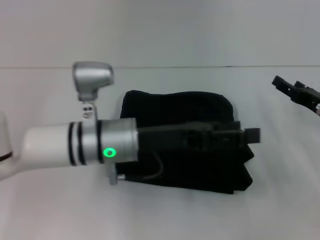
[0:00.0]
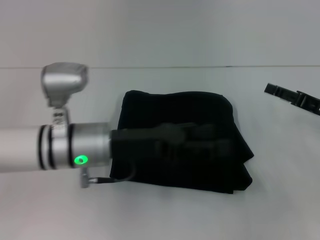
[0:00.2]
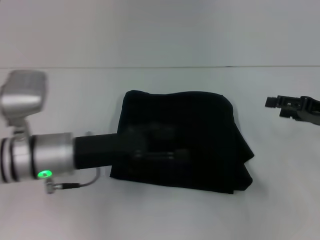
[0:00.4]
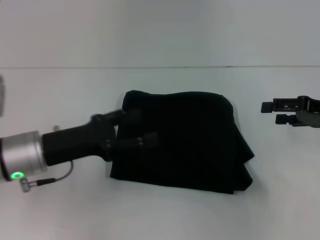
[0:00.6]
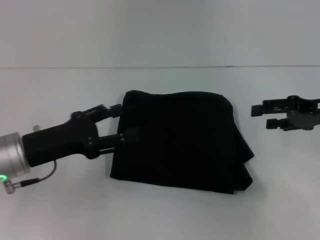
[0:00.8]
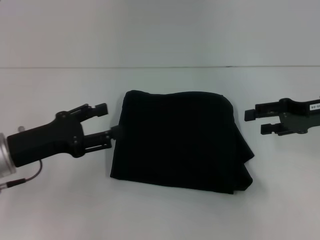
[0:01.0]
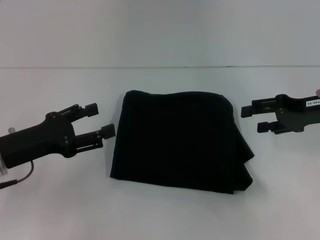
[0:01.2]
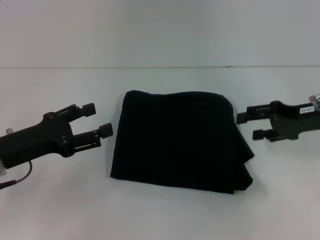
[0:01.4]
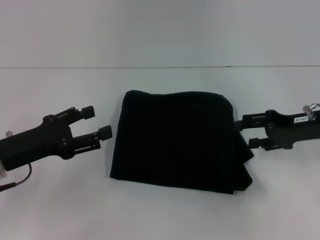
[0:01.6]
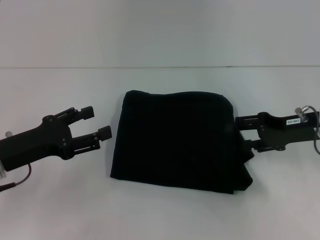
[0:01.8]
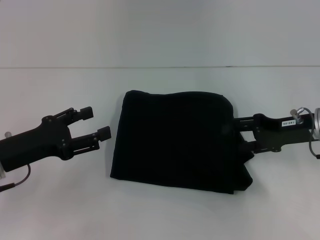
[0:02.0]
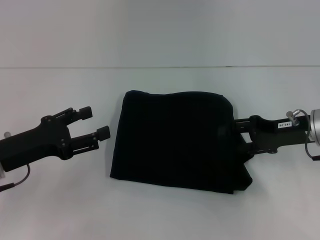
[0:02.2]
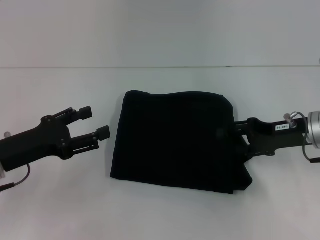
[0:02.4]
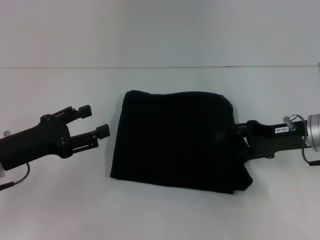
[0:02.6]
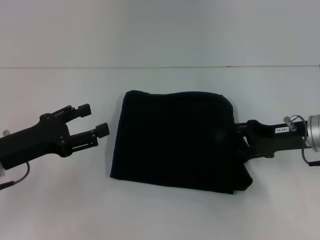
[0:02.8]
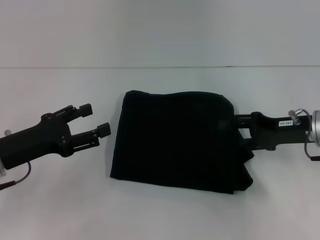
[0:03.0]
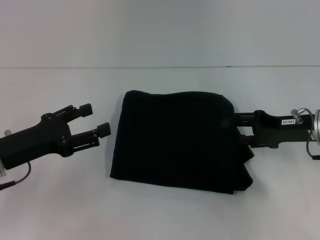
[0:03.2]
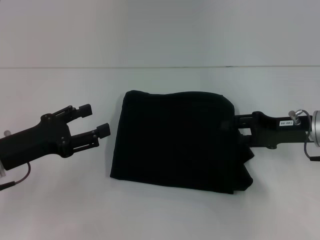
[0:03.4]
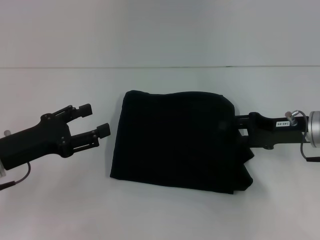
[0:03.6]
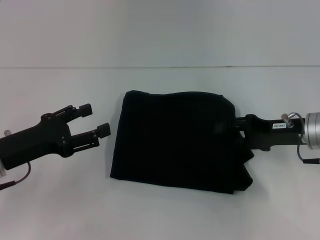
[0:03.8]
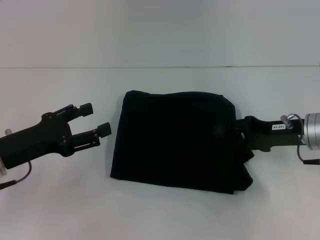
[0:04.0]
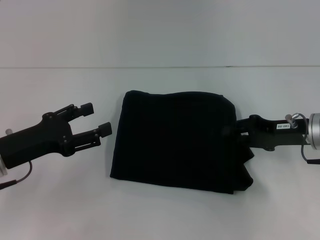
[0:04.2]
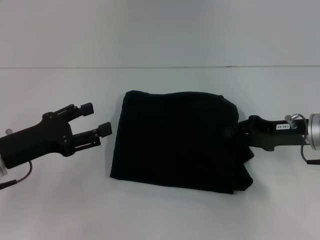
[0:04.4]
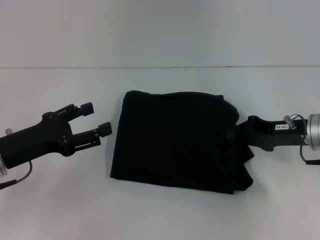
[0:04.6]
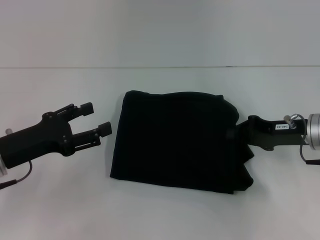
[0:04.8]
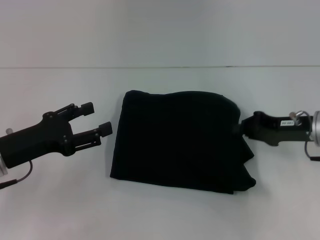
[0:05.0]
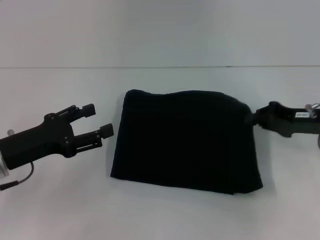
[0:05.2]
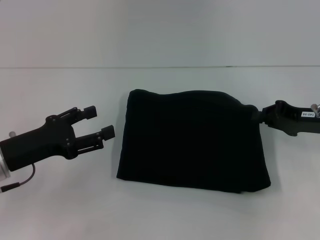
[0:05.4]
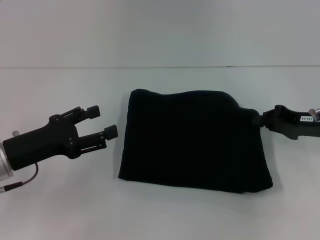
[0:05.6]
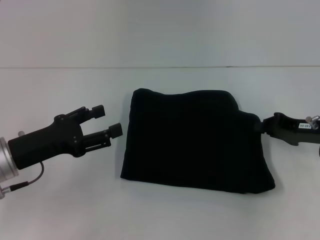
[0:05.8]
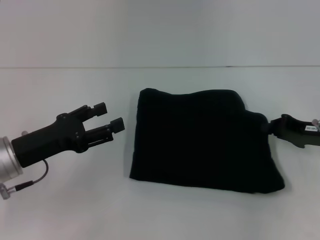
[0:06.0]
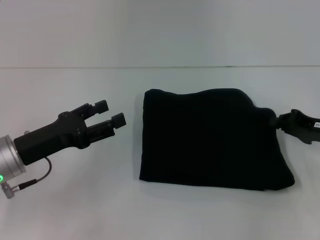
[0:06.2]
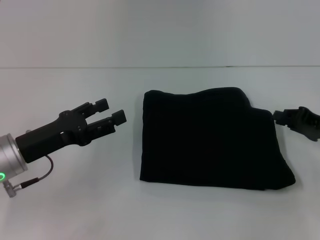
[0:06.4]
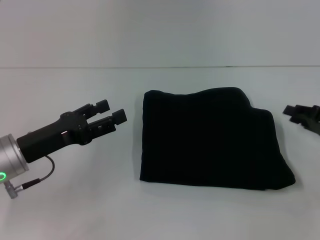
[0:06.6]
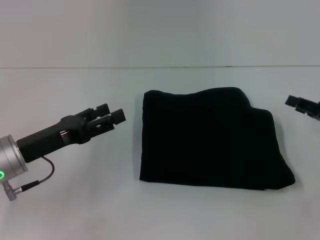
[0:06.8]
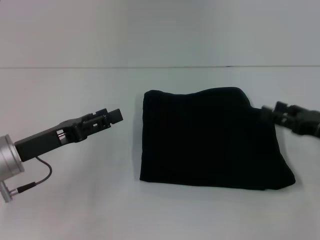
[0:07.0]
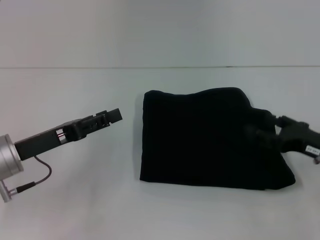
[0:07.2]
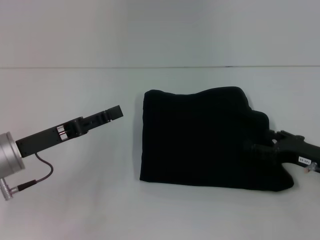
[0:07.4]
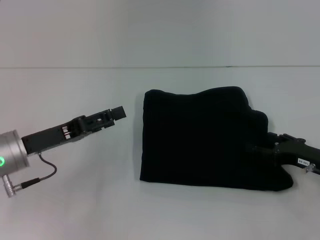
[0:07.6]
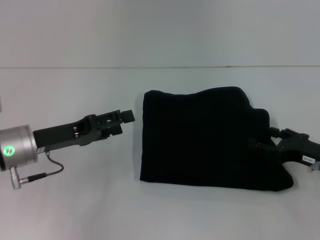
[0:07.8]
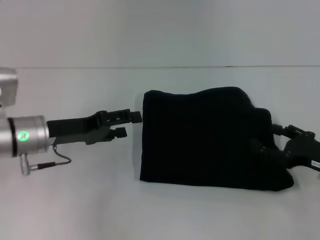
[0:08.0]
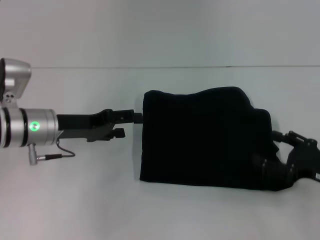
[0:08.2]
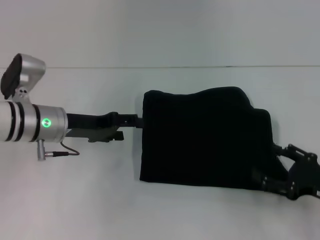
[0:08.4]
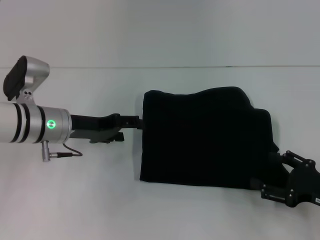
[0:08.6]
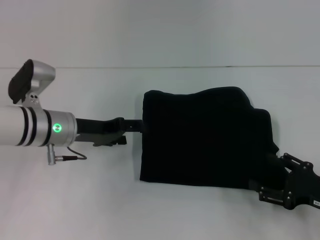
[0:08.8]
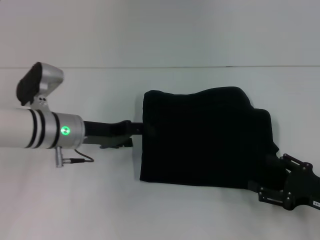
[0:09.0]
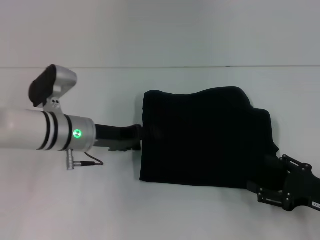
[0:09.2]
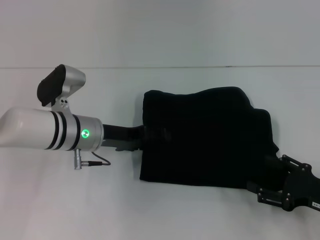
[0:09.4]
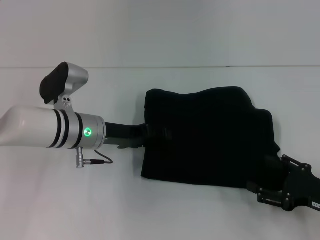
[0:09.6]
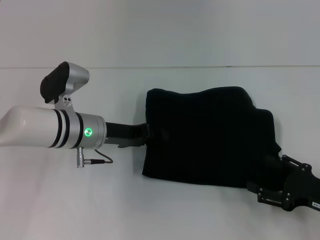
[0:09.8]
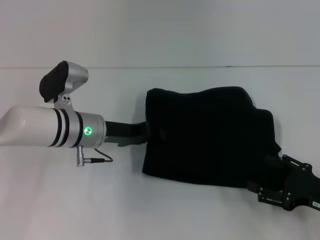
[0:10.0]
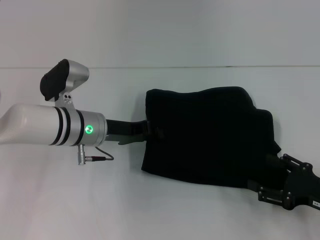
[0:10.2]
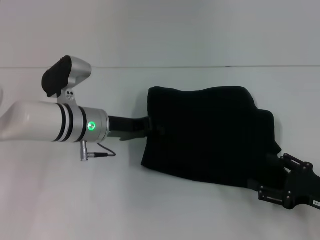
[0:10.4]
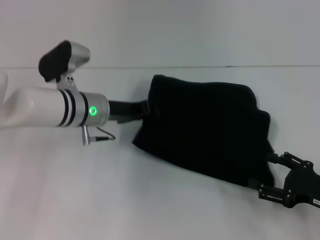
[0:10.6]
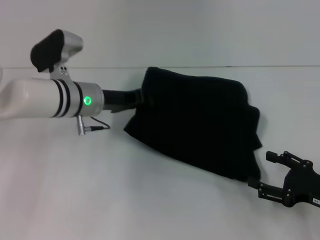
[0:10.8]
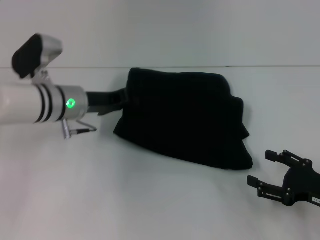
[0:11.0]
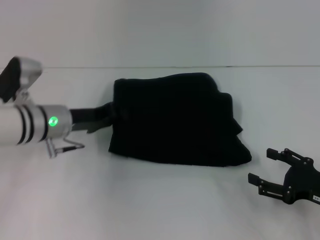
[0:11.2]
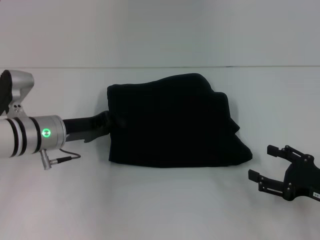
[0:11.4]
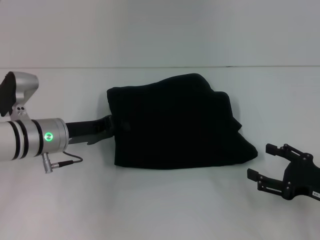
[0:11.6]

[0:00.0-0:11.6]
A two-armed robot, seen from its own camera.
0:00.0 to 0:01.4: The left gripper shifts about 20 cm to the left, while the right gripper shifts approximately 10 cm upward.
0:01.4 to 0:02.8: The right gripper changes place by about 5 cm.
0:02.8 to 0:04.4: The right gripper closes its fingers.
0:04.4 to 0:05.8: The right gripper closes.
0:05.8 to 0:07.2: The right gripper goes approximately 5 cm backward, and opens its fingers.
0:07.2 to 0:08.8: The right gripper travels backward by some 5 cm; the left gripper travels forward and to the right by about 10 cm.
0:08.8 to 0:10.2: The left gripper closes.
0:10.2 to 0:11.6: The left gripper heads to the left, covering roughly 5 cm.

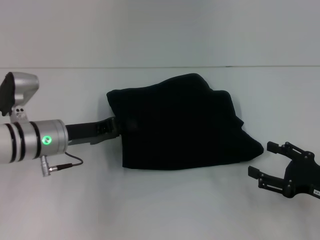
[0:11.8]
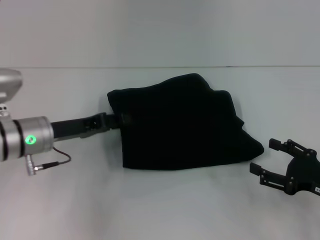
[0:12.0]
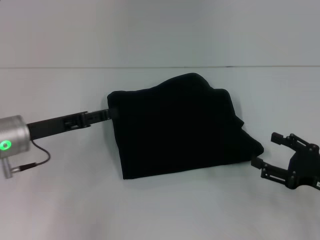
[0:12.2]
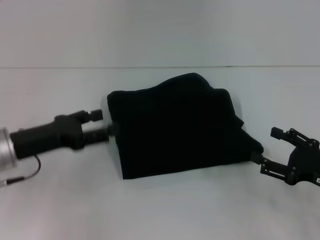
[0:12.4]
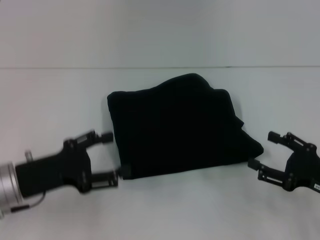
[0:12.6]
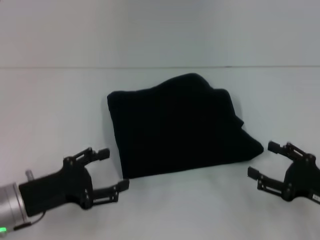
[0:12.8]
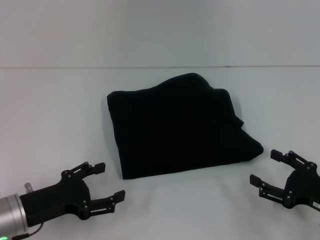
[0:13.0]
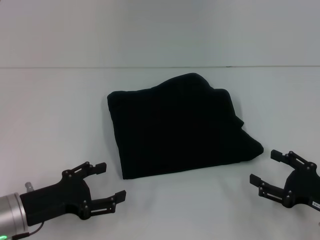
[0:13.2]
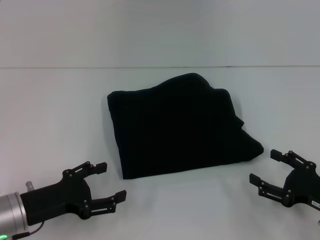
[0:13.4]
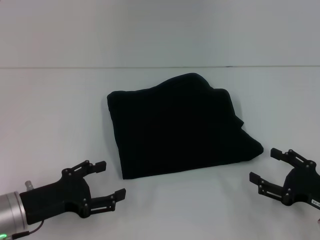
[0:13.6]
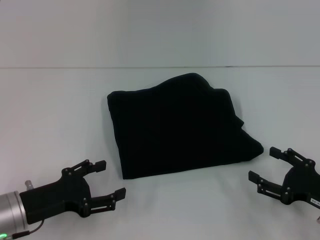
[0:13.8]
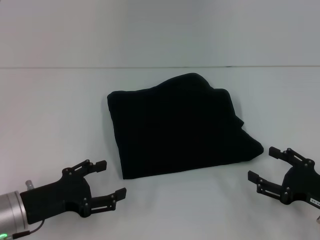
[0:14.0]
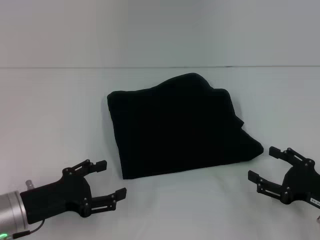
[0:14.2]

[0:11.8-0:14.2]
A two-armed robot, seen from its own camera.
0:11.8 to 0:13.0: The left gripper moves backward, approximately 10 cm, and opens.
0:13.0 to 0:14.2: The two grippers keep their place.

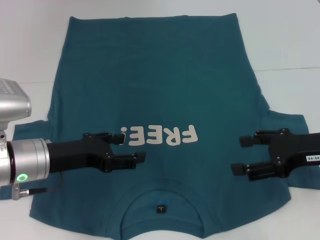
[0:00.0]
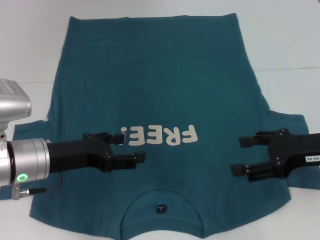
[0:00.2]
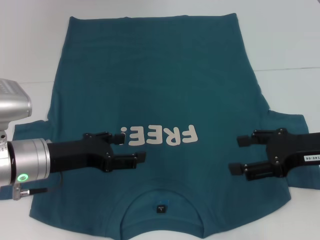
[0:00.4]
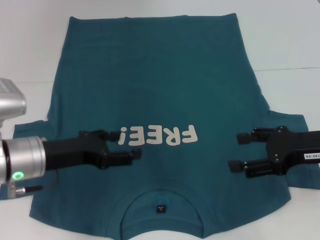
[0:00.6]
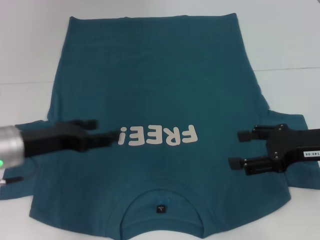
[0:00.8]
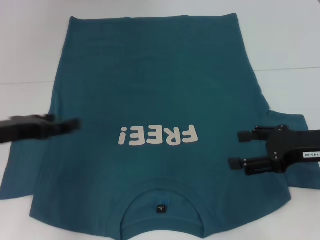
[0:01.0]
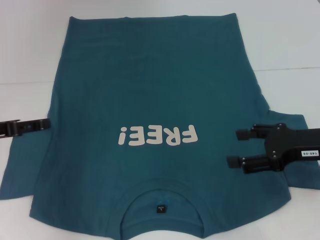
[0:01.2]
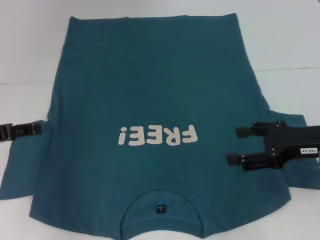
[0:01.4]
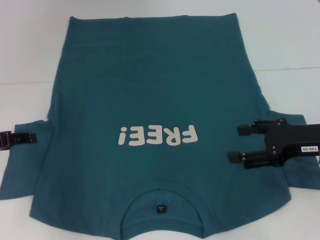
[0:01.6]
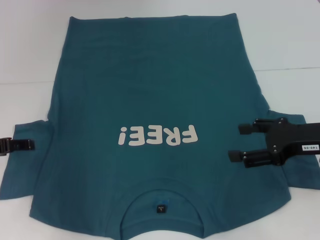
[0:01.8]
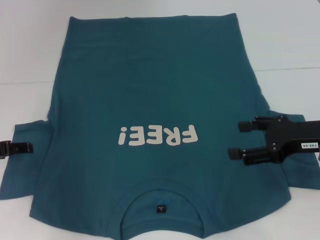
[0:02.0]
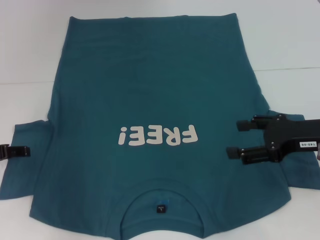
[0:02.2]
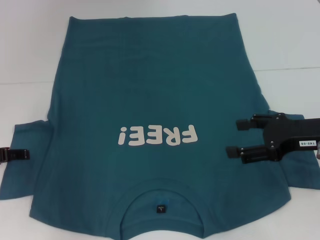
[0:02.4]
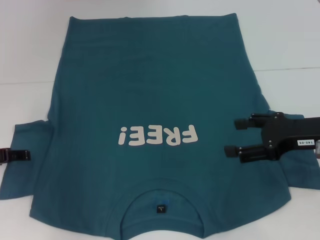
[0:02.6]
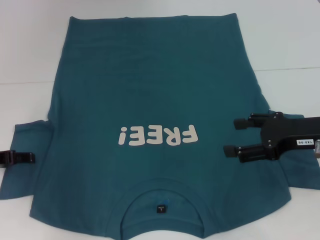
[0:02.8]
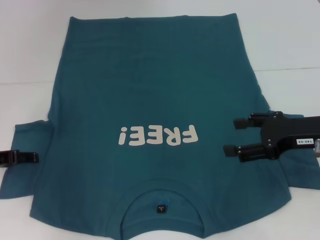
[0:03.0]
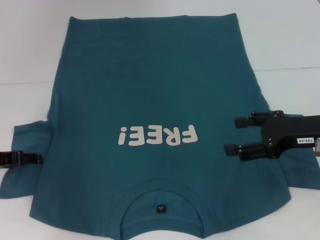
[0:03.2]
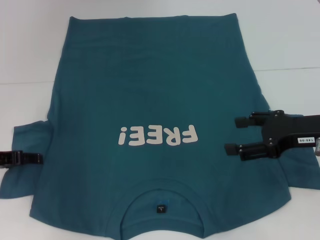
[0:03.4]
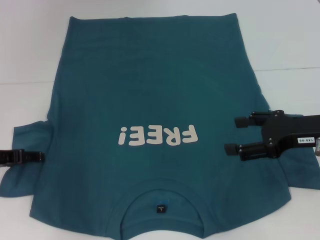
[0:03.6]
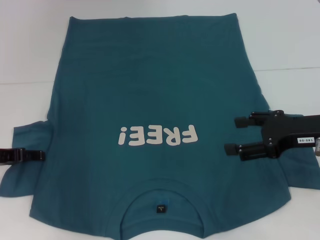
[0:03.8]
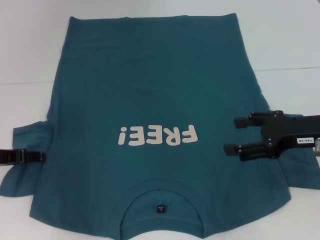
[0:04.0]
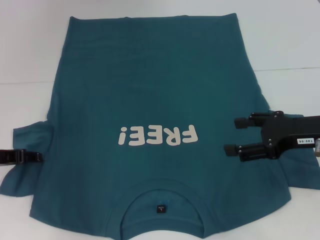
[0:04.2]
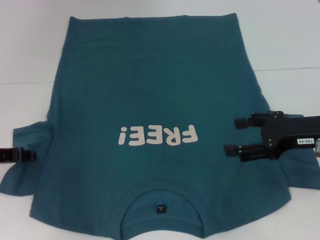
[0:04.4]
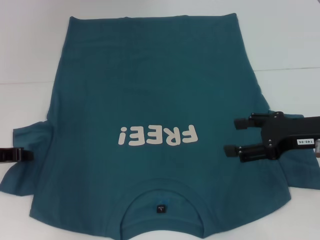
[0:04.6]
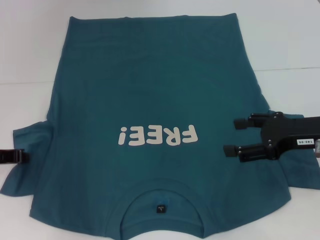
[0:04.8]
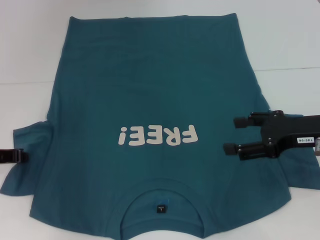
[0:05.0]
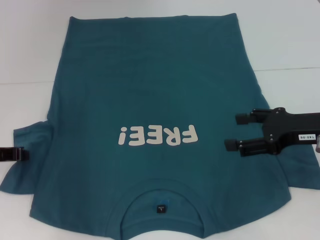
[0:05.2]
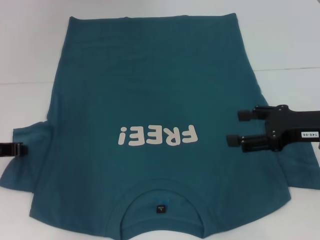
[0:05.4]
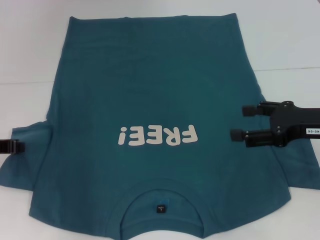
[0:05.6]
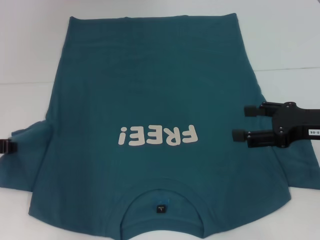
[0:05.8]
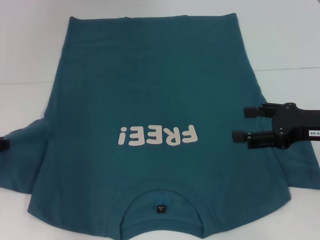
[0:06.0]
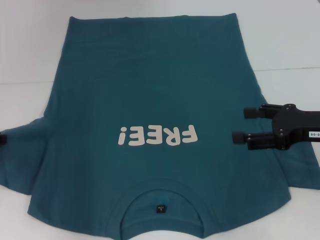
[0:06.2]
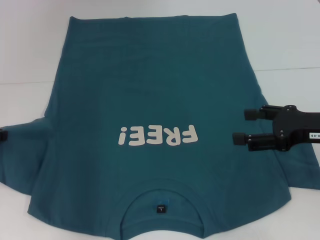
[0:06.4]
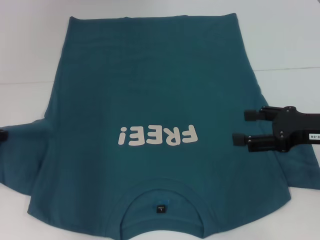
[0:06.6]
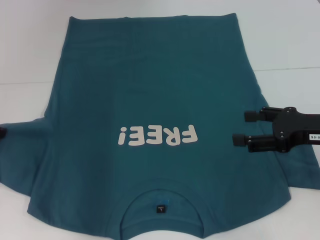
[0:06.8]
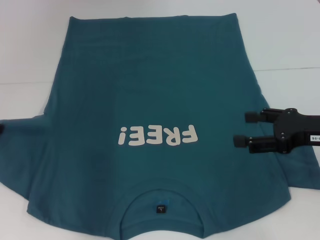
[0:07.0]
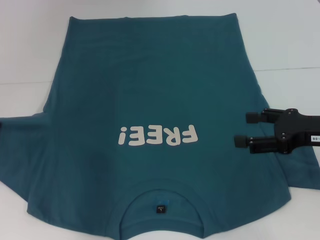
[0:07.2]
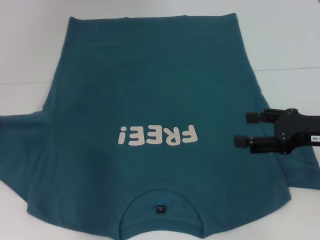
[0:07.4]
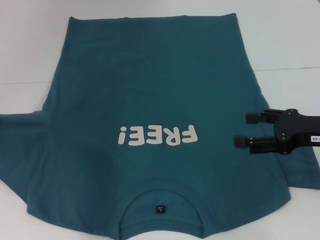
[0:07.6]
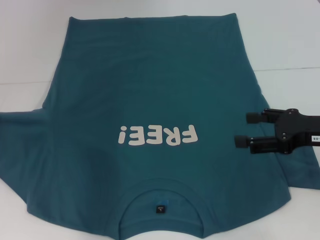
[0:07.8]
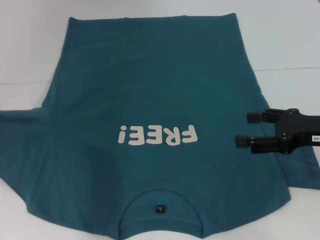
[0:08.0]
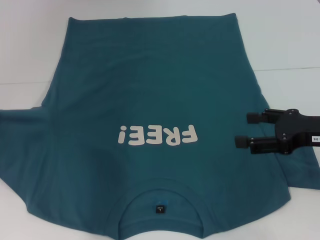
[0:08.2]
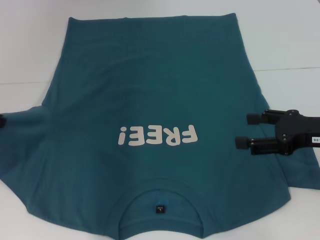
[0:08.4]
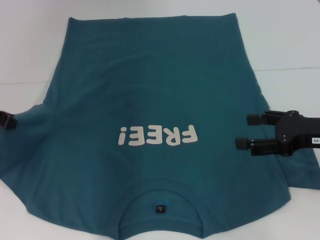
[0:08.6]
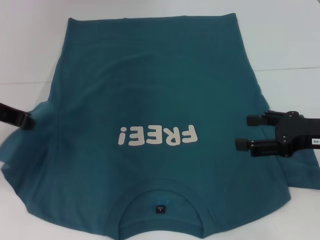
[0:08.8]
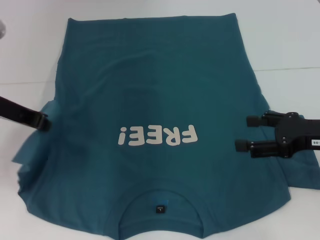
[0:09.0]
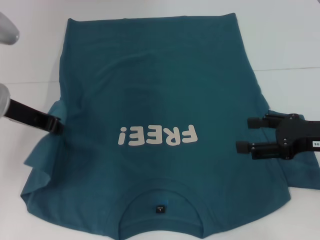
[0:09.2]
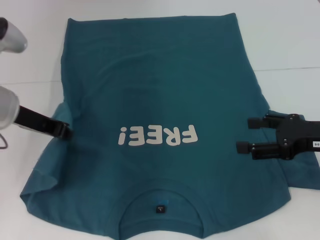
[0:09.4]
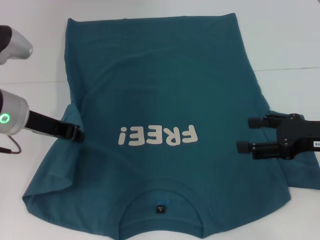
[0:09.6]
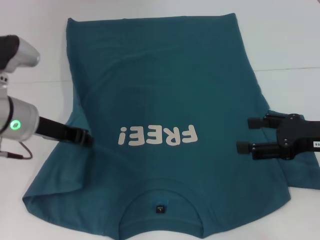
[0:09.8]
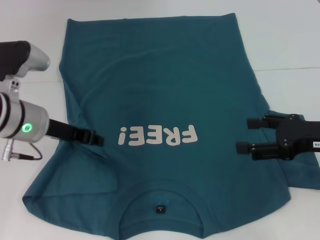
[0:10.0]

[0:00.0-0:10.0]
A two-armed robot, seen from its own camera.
0:00.0 to 0:01.4: The left gripper heads to the left, covering roughly 10 cm.
0:01.4 to 0:02.8: The left gripper shifts by some 5 cm.
0:02.8 to 0:04.2: The grippers make only small movements.
0:04.2 to 0:05.8: The left gripper closes its fingers.
0:05.8 to 0:07.2: The left gripper goes approximately 5 cm upward.
0:07.2 to 0:08.6: The left gripper ends up about 5 cm from where it was.
0:08.6 to 0:10.0: The left gripper moves to the right and downward, roughly 10 cm.
